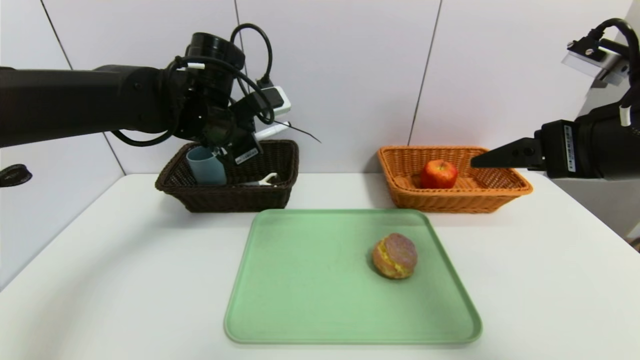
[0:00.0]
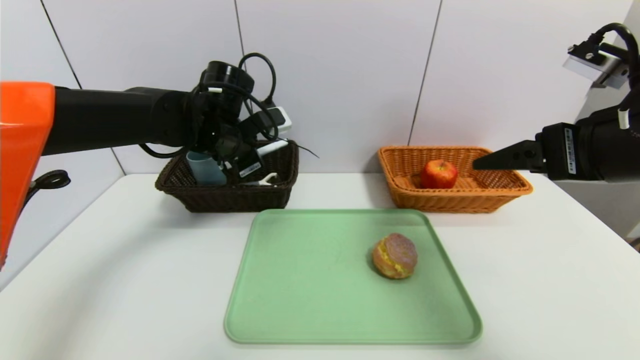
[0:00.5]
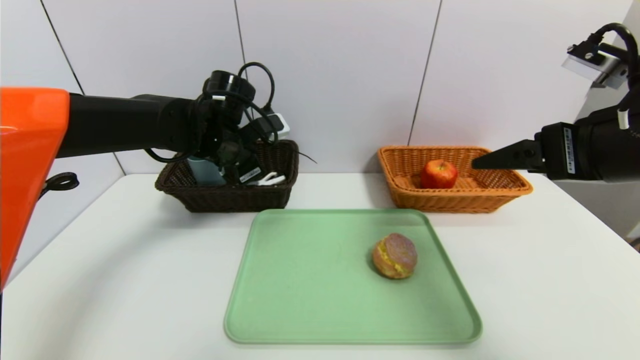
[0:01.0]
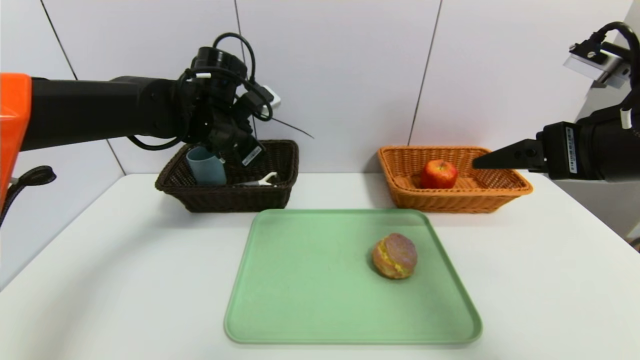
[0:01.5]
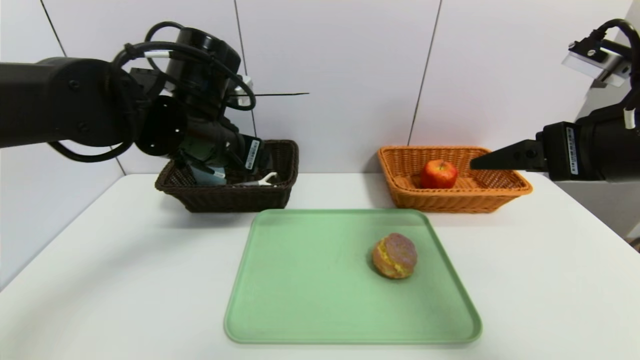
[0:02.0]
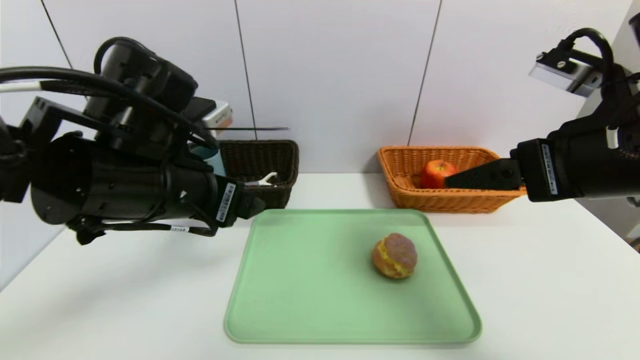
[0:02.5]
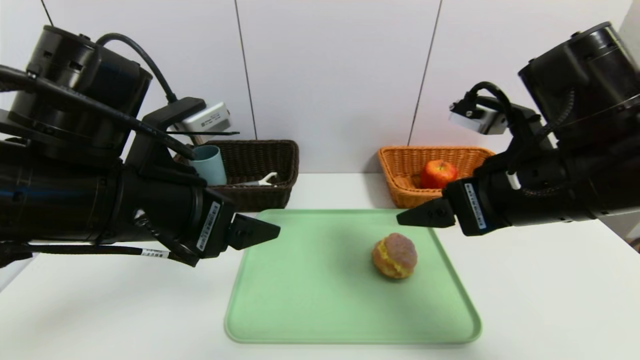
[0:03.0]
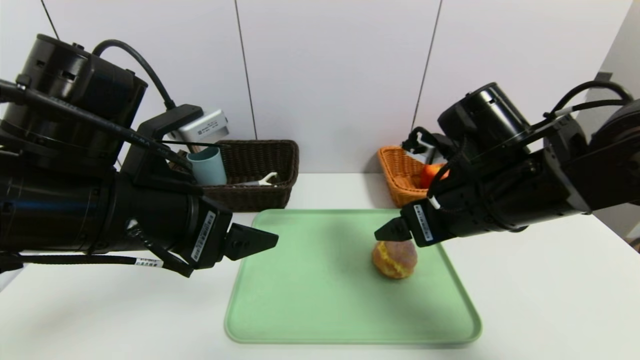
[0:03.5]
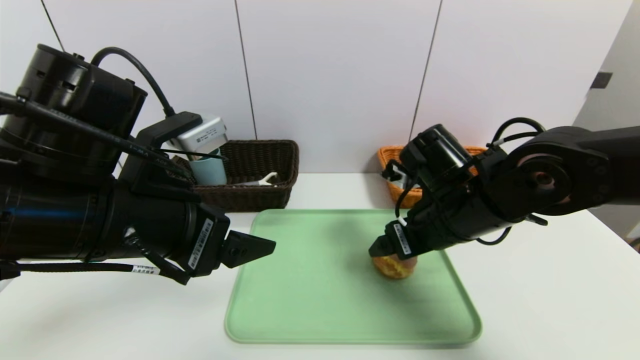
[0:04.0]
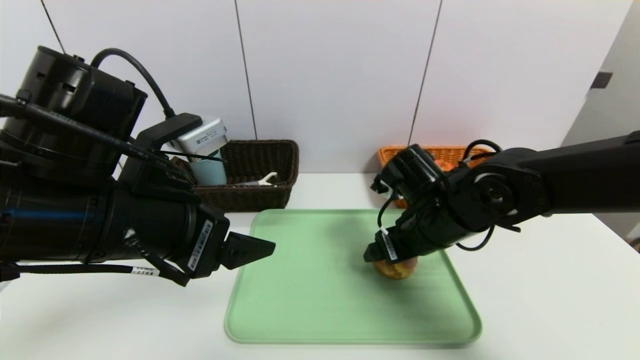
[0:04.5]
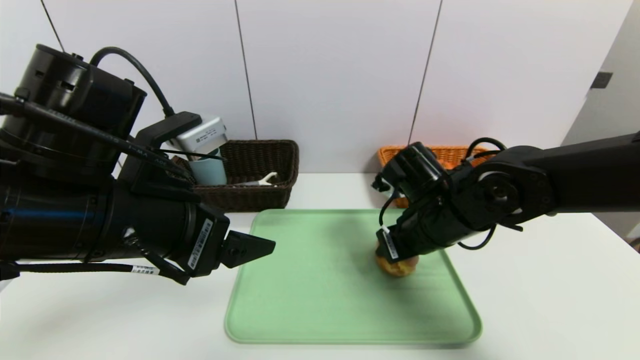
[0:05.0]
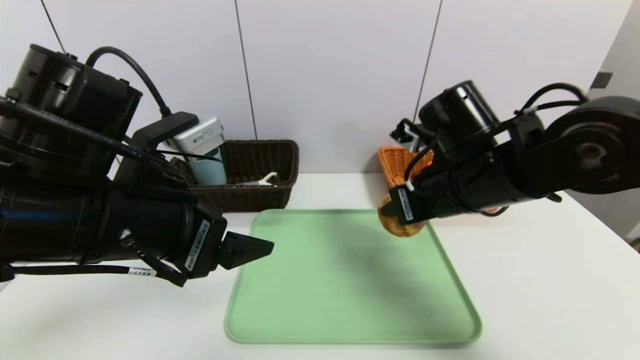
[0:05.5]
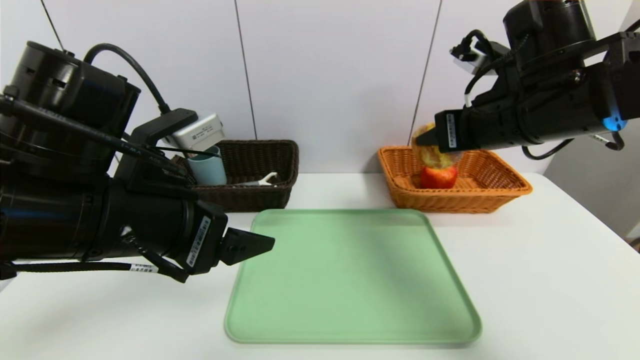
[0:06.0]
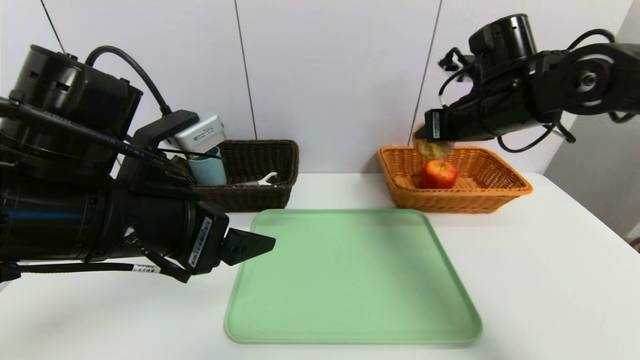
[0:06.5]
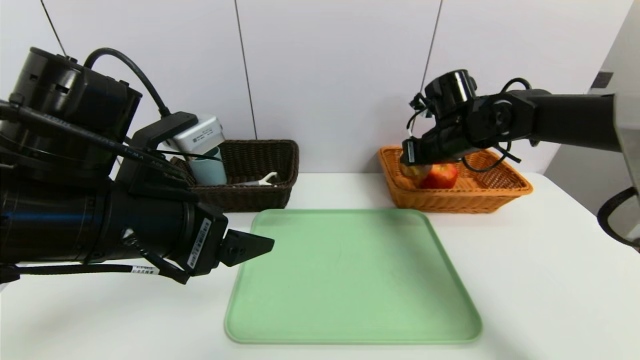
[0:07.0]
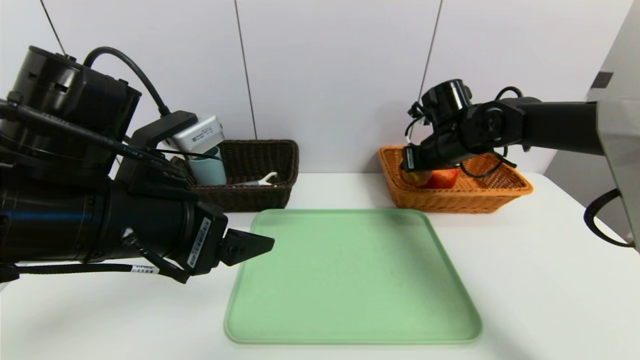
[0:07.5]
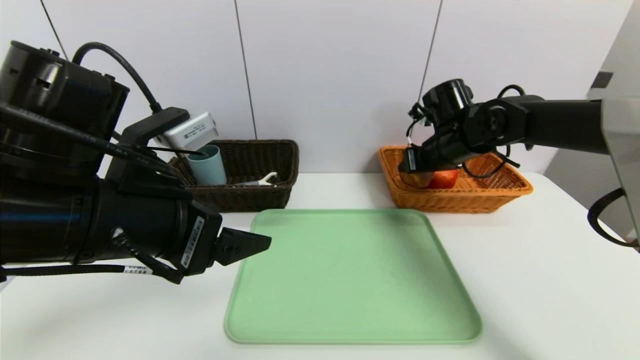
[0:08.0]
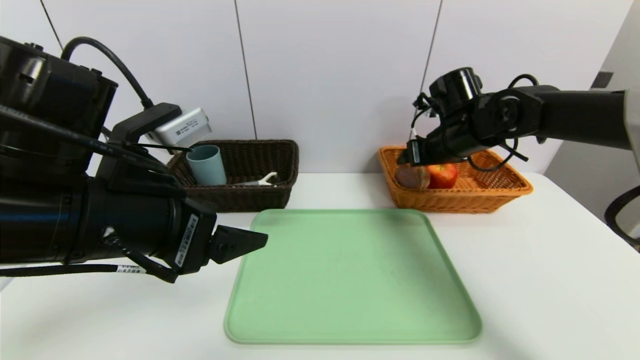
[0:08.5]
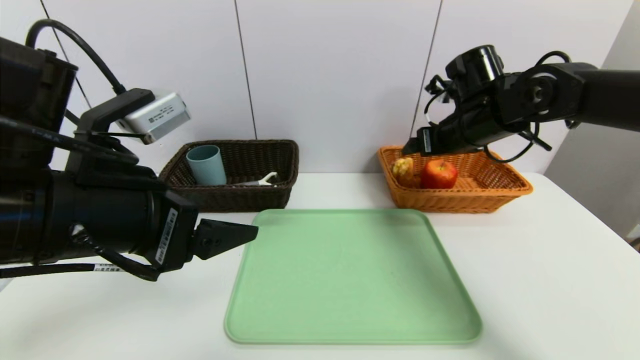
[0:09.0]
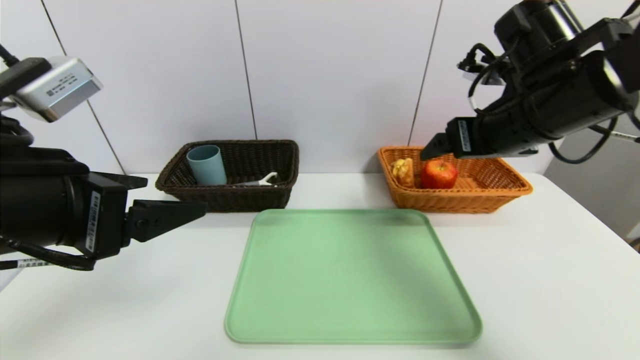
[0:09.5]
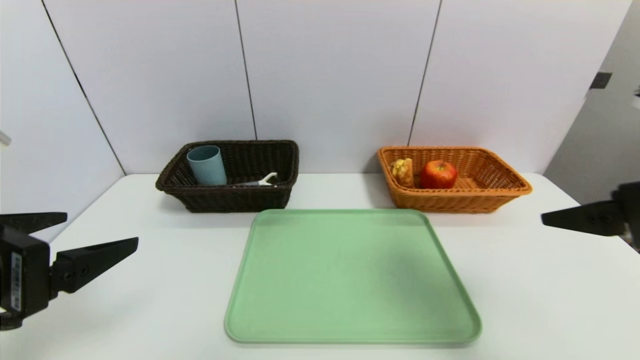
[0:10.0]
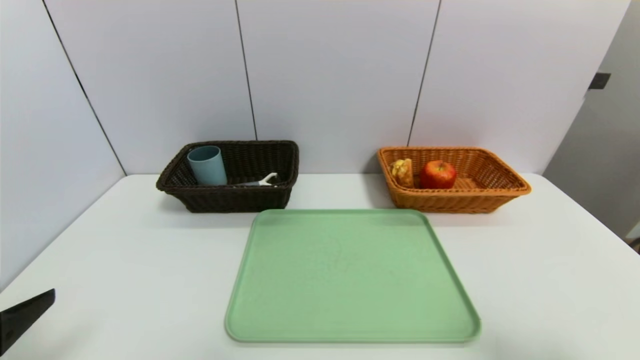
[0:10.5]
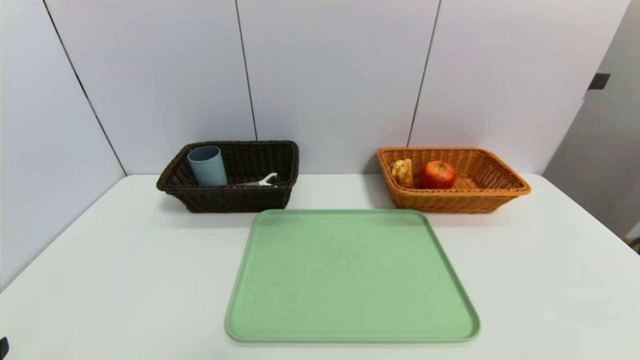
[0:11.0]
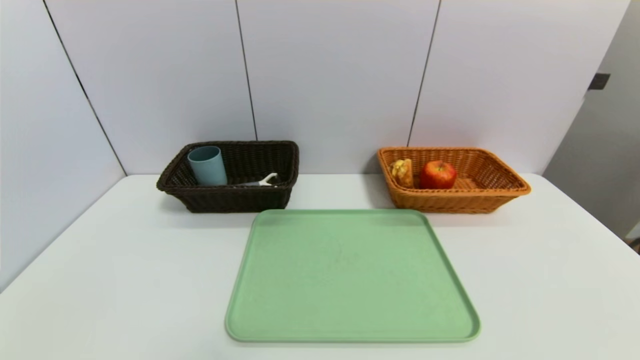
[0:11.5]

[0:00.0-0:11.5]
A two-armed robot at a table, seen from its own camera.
Task of the whole recording: place the food in the right basket with the right gripper, and place the non food items in the left basket with the left gripper.
Step, 0:02.0 to 0:09.0: Grasp the egg yolk pastry and put it in the right basket.
0:00.0 to 0:02.0: The left gripper travels backward by about 5 cm, and opens up.
0:02.0 to 0:04.0: The right gripper moves downward, to the left and forward, roughly 20 cm. Meanwhile the left gripper moves backward, some 10 cm.
0:04.0 to 0:06.0: The right gripper goes some 15 cm upward and to the right, and closes its fingers.
0:06.0 to 0:07.5: The right gripper heads forward and downward, covering about 15 cm.
0:07.5 to 0:09.5: The left gripper is displaced to the left by some 5 cm. Meanwhile the right gripper travels backward and upward by about 20 cm, and opens up.
0:09.5 to 0:11.5: The left gripper goes some 25 cm backward, downward and to the left; the right gripper shifts approximately 35 cm backward.

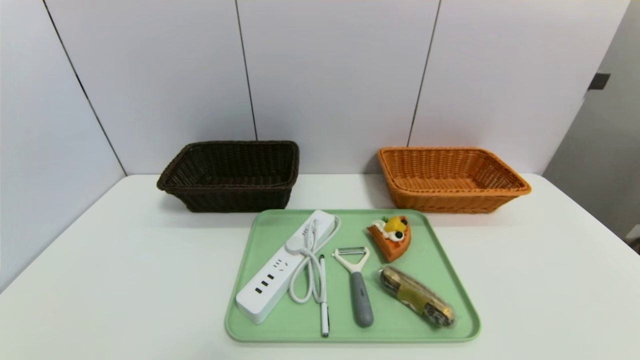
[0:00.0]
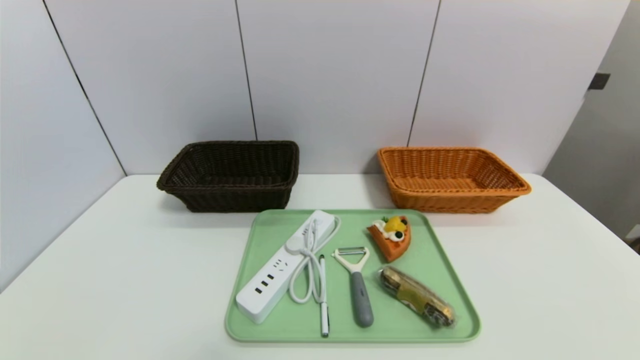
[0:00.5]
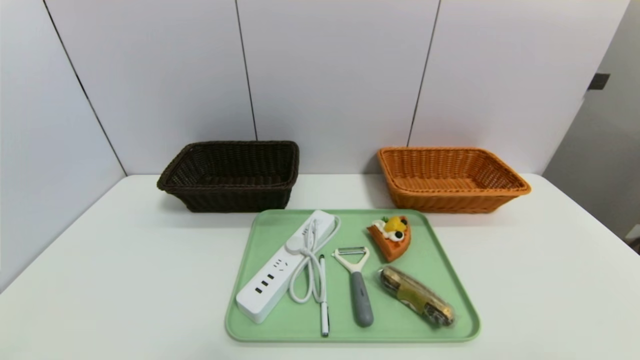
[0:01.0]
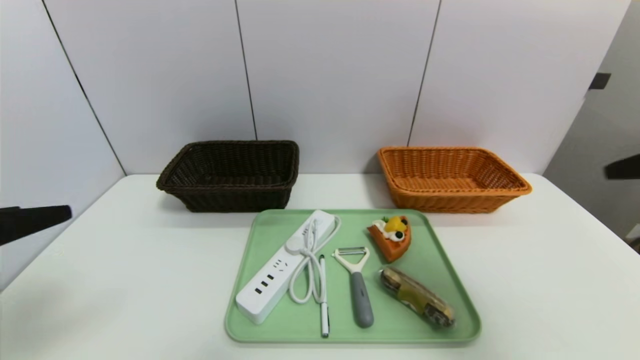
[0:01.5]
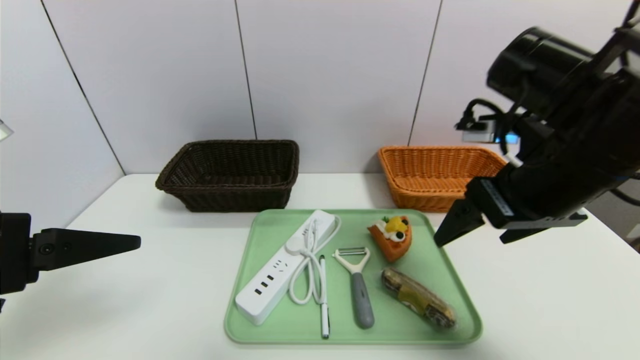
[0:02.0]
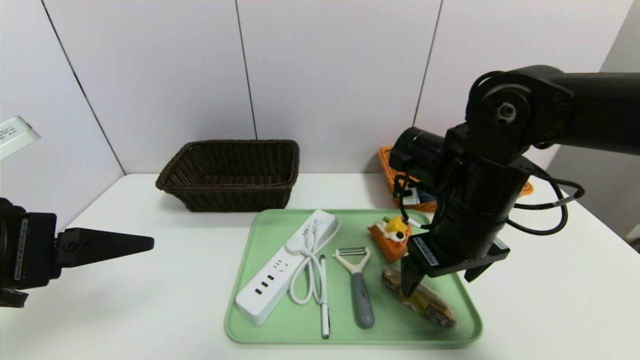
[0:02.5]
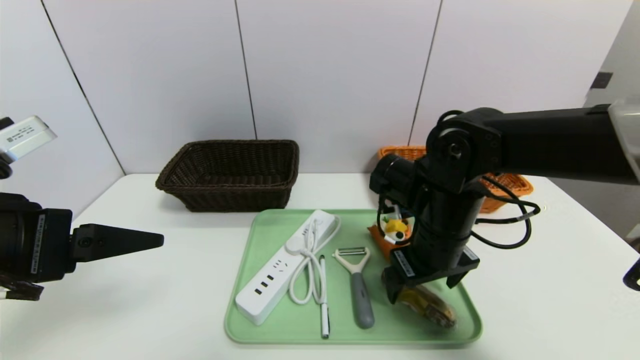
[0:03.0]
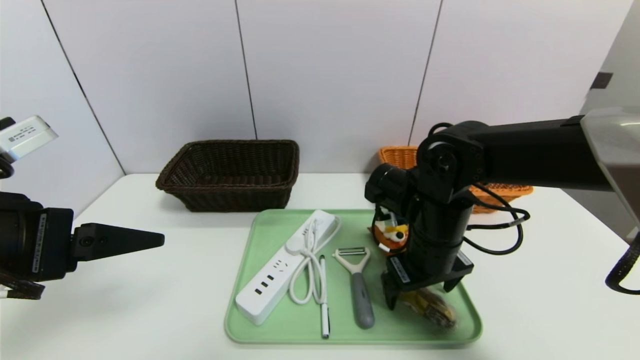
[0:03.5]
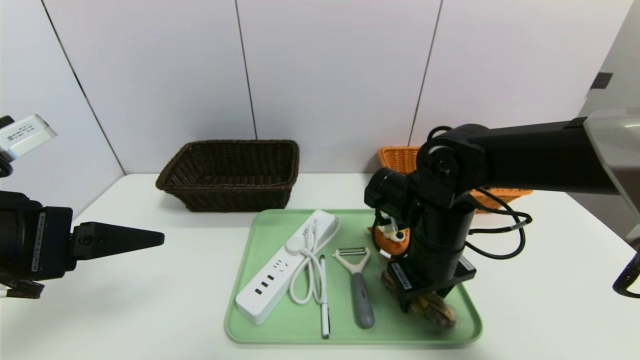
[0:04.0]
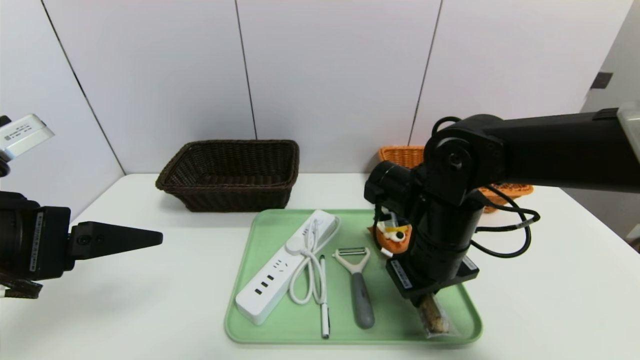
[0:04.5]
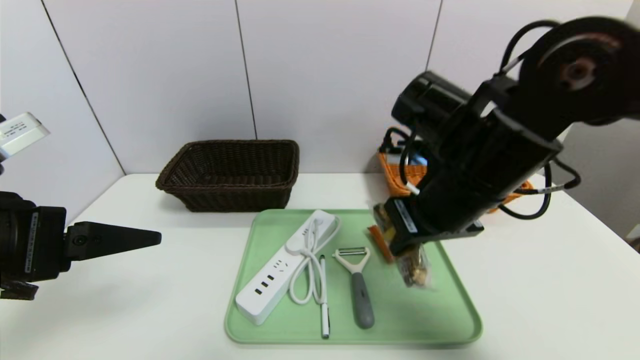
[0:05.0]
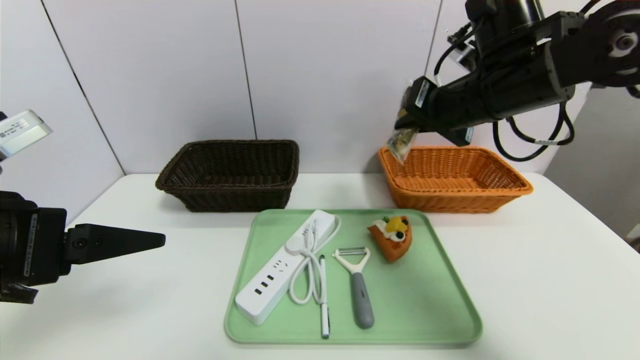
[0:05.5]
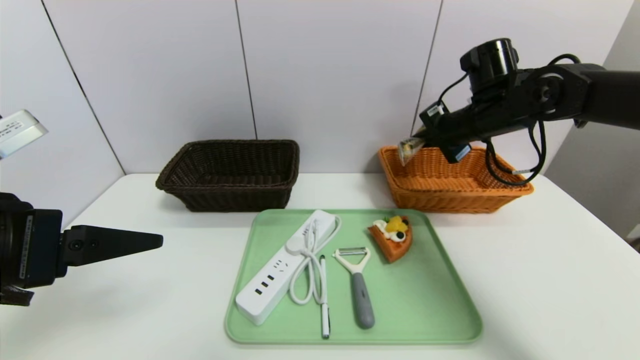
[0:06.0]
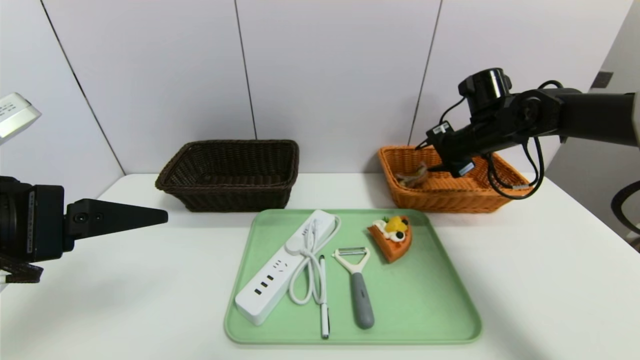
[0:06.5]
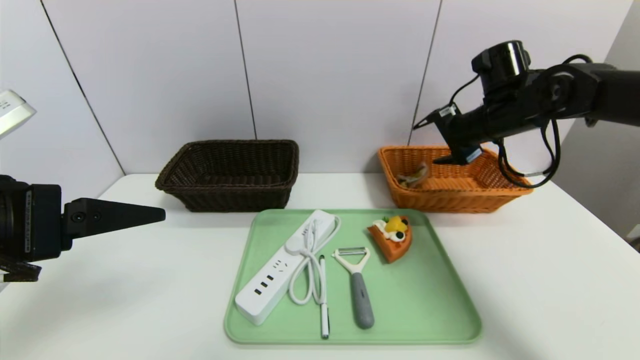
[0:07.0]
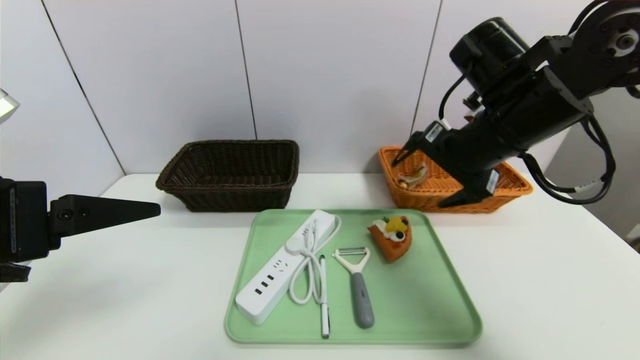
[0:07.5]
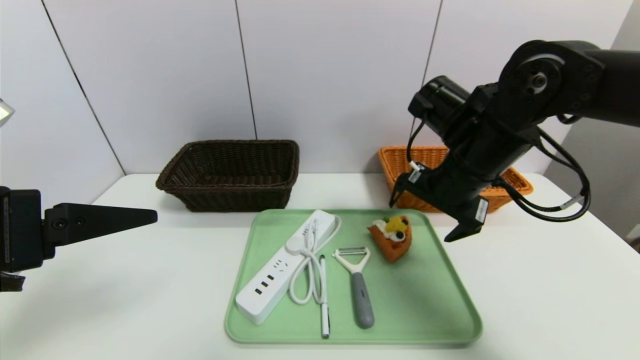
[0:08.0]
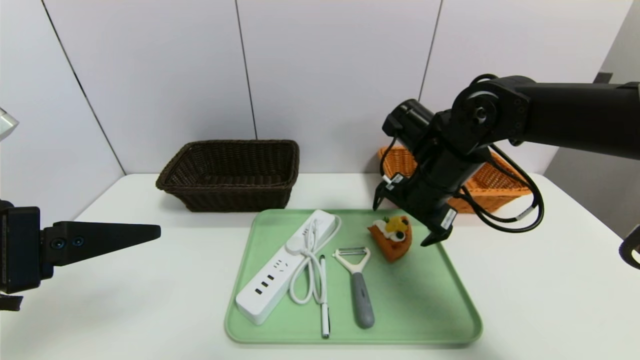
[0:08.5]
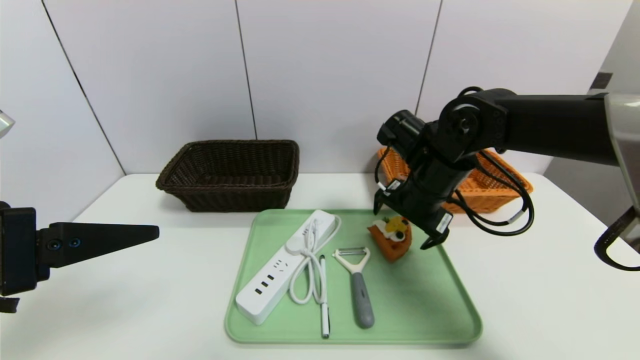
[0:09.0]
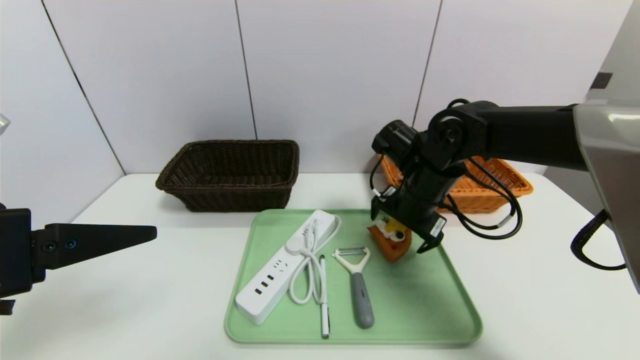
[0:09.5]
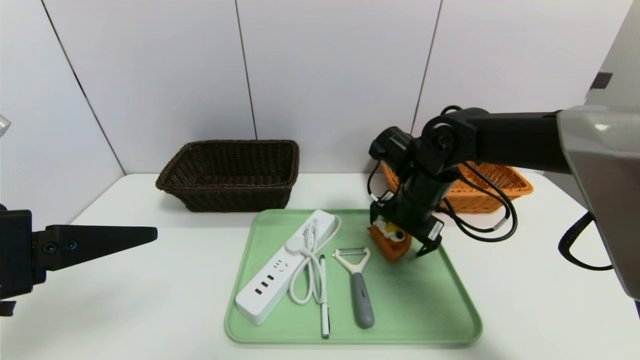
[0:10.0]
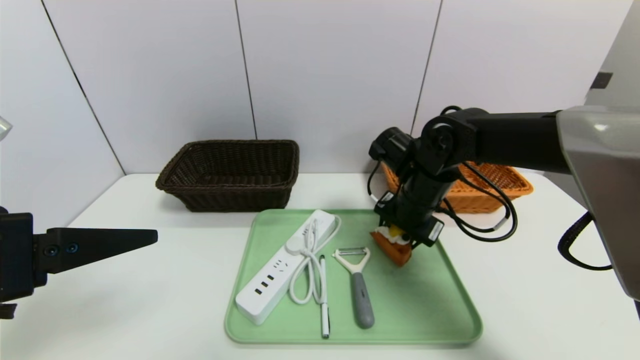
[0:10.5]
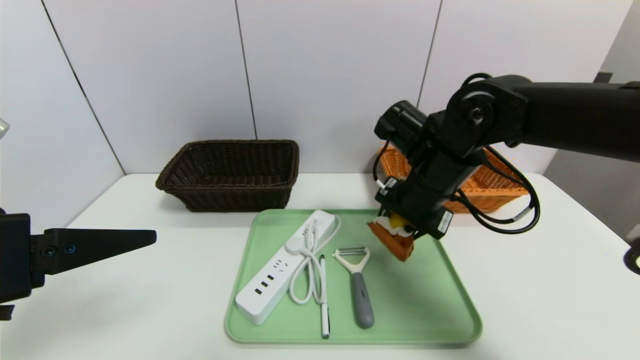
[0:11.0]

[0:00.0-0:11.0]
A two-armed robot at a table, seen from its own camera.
Task of the whole recording: place the food in the right basket with the right gripper, and place the non food items in the left basket with the left gripper.
Step, 0:00.0 to 0:06.5: Grasp the chocolate and put it in the right basket.
0:00.0 to 0:02.0: The right gripper moves forward, upward and to the left, about 35 cm. The left gripper heads upward and forward, covering about 25 cm.
0:02.0 to 0:03.5: The right gripper travels downward, to the left and forward by about 15 cm.
0:03.5 to 0:05.5: The right gripper is displaced upward by roughly 15 cm, and closes up.
0:05.5 to 0:07.5: The right gripper reaches about 10 cm forward, then returns, and opens up.
0:07.5 to 0:09.0: The right gripper heads downward, covering roughly 10 cm.
0:09.0 to 0:11.0: The right gripper closes its fingers.
